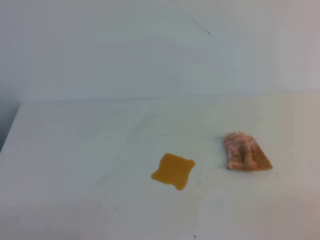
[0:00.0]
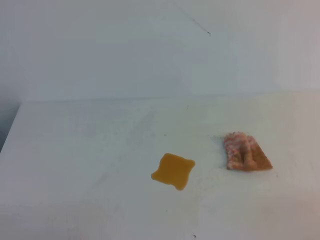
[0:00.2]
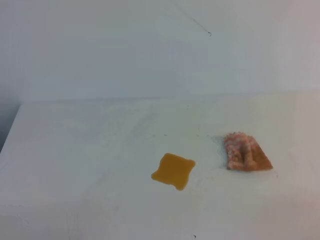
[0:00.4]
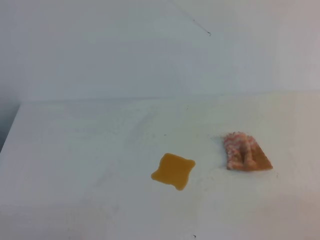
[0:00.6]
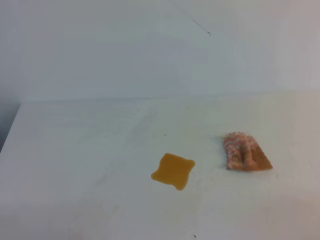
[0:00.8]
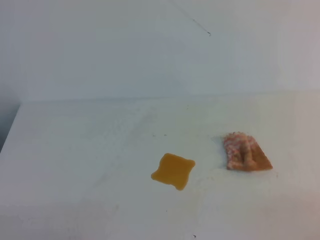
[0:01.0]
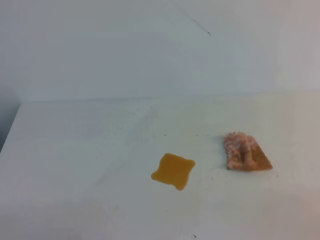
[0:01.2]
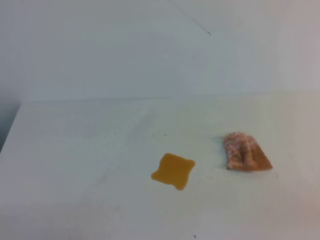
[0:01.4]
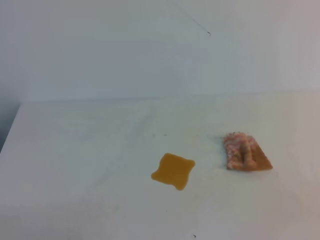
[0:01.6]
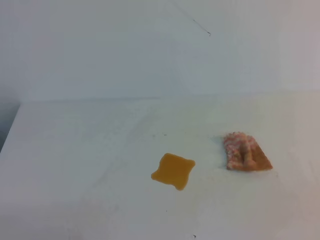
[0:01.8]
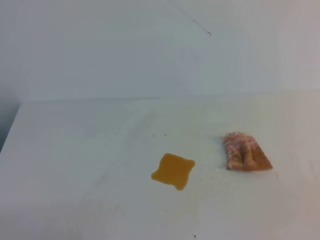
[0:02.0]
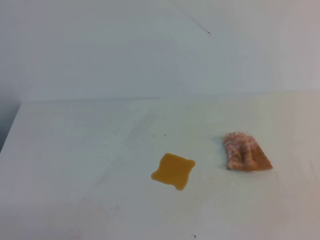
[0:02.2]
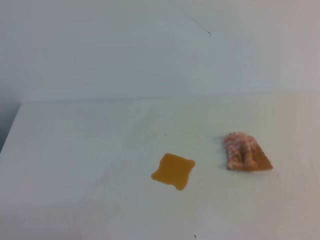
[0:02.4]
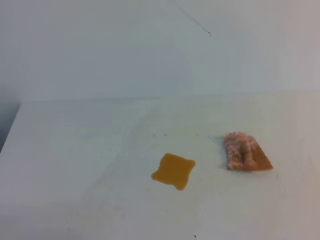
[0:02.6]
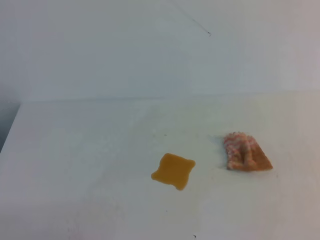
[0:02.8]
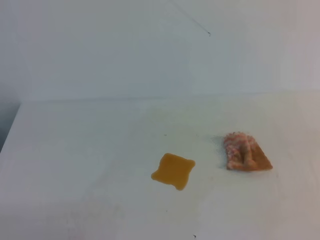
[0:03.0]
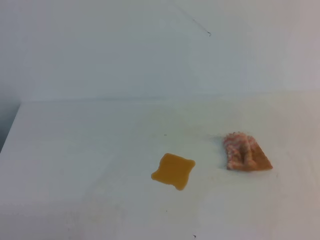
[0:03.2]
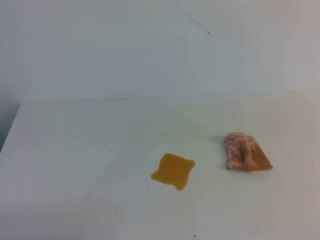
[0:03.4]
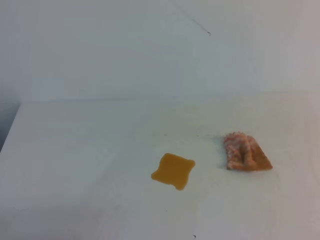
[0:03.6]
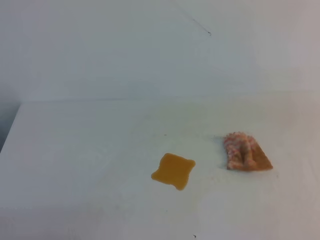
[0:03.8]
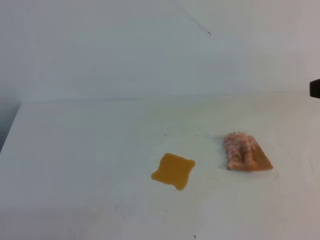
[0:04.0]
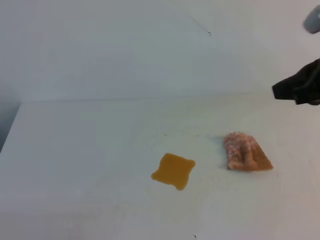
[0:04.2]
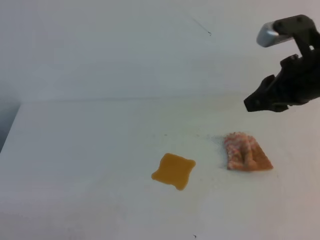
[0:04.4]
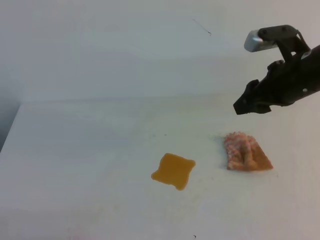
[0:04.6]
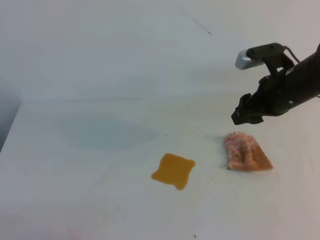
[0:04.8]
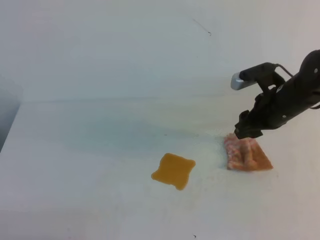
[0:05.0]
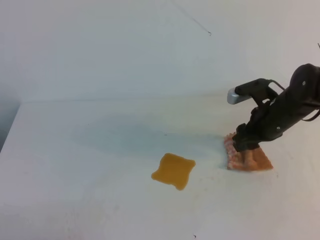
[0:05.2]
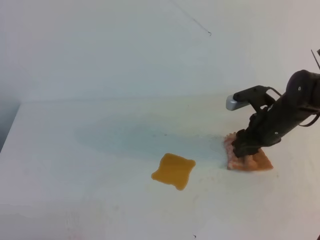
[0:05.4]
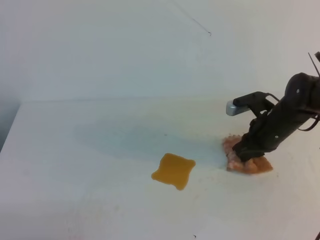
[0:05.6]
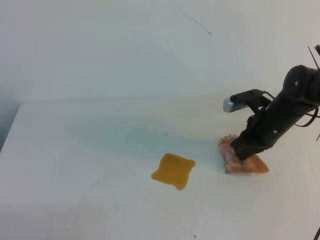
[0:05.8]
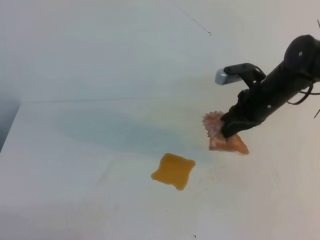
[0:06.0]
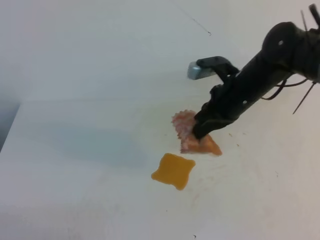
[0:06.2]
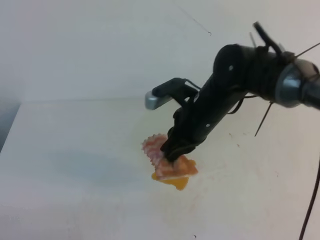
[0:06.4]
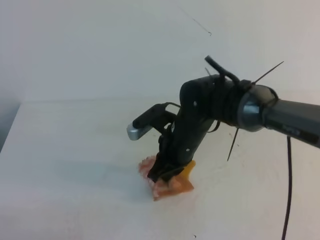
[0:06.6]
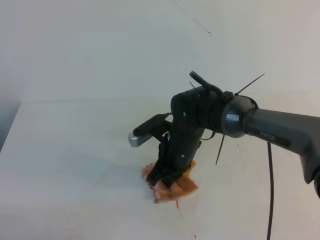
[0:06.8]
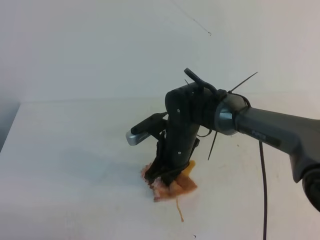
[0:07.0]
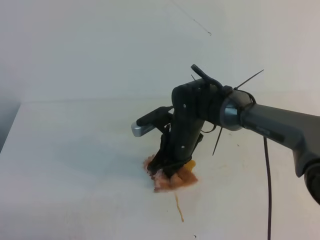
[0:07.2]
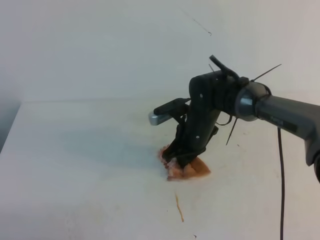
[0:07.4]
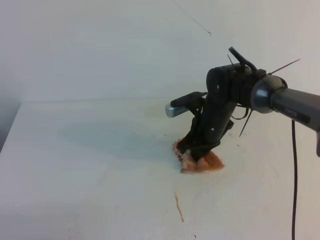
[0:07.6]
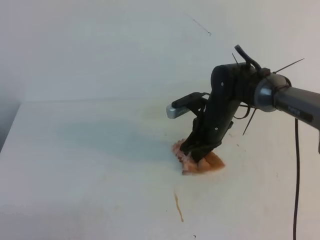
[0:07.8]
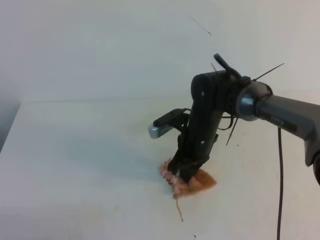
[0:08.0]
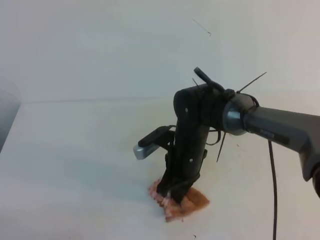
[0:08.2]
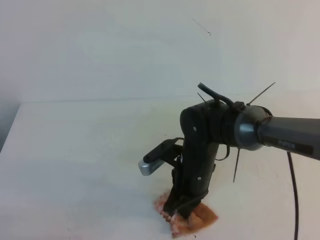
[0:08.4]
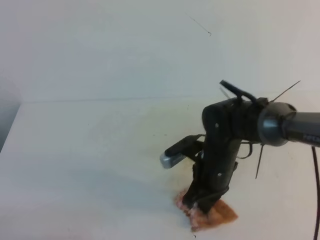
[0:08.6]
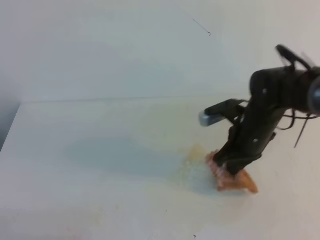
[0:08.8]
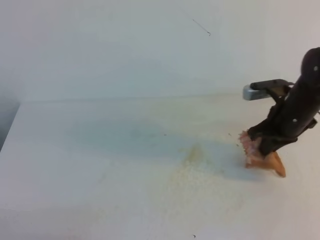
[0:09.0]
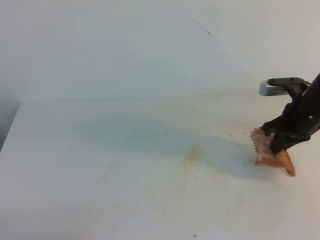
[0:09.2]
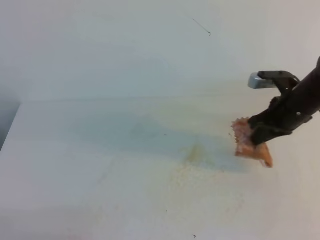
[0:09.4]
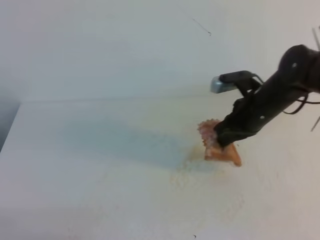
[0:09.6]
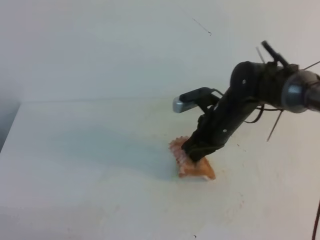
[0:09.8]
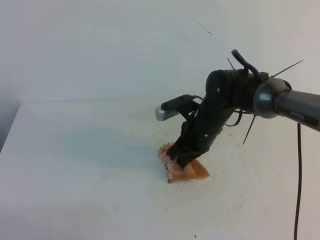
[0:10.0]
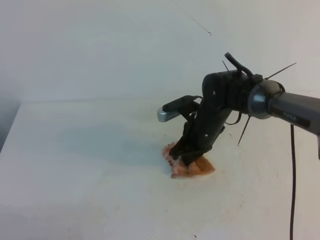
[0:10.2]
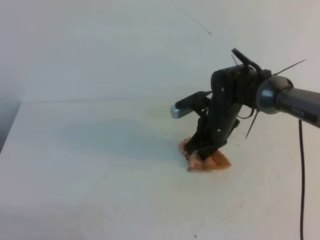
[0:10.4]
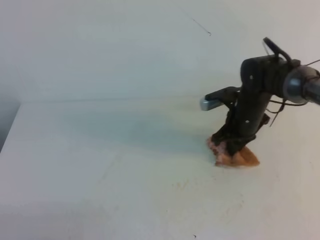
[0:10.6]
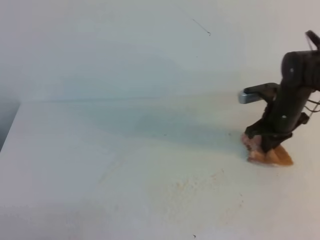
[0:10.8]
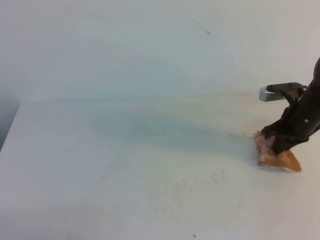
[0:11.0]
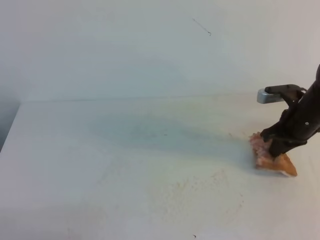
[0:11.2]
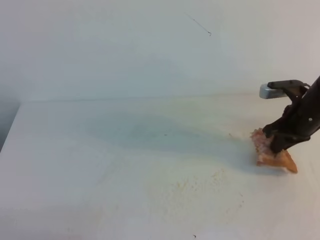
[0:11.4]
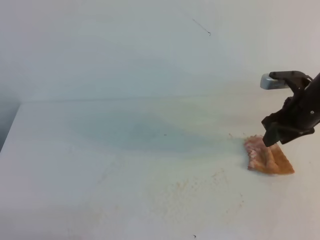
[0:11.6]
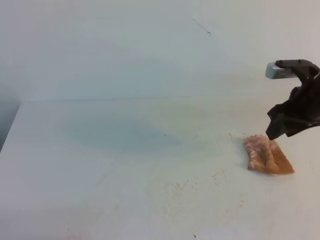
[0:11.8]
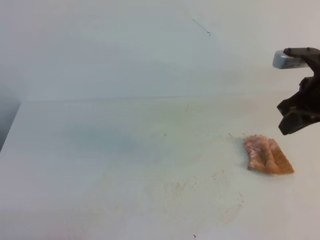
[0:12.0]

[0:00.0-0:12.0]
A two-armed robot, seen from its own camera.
0:03.0 to 0:04.4: The right gripper heads forward, covering roughly 25 cm, and opens up.
0:04.4 to 0:06.0: The right gripper moves downward and forward, some 15 cm, and opens, then closes again.
0:06.0 to 0:07.6: The right gripper heads to the left and downward, covering roughly 10 cm.
0:07.6 to 0:09.0: The right gripper shifts approximately 15 cm to the right.
0:09.0 to 0:10.4: The right gripper travels to the left by some 10 cm.
0:10.4 to 0:12.0: The right gripper shifts approximately 20 cm to the right and upward.

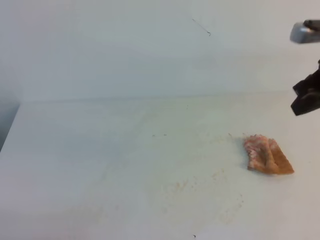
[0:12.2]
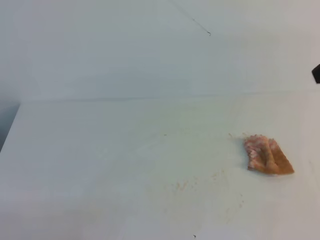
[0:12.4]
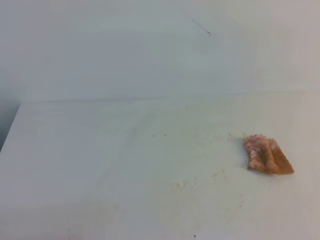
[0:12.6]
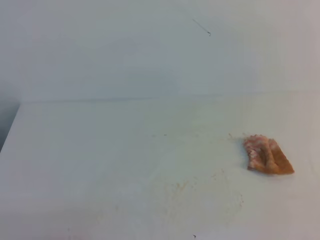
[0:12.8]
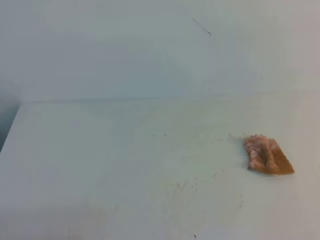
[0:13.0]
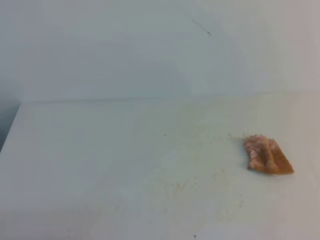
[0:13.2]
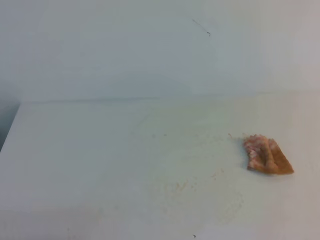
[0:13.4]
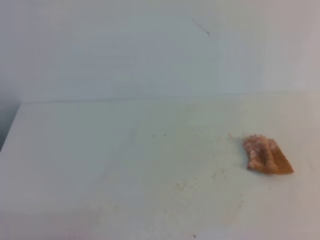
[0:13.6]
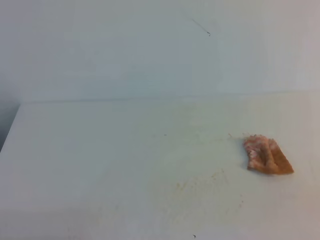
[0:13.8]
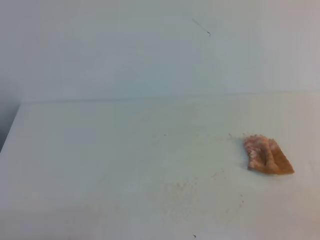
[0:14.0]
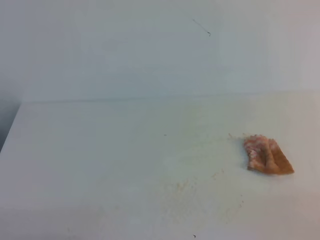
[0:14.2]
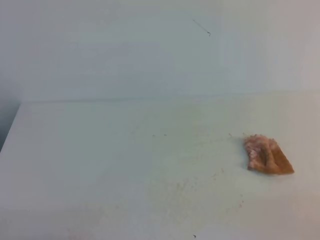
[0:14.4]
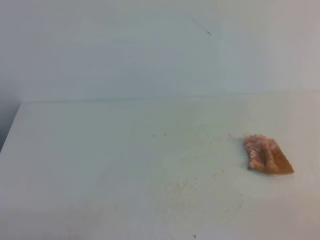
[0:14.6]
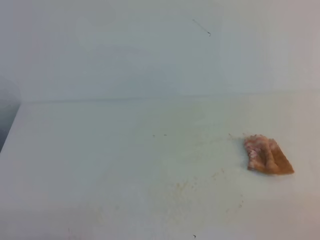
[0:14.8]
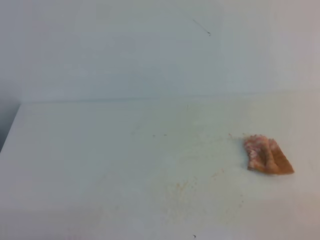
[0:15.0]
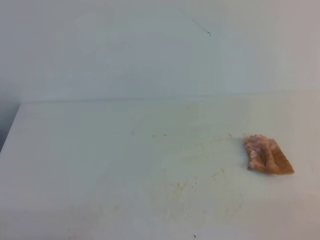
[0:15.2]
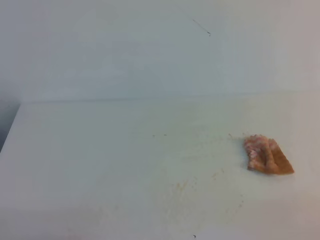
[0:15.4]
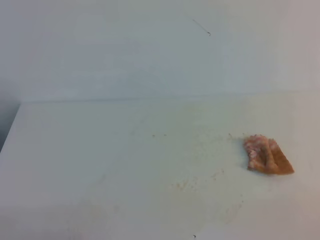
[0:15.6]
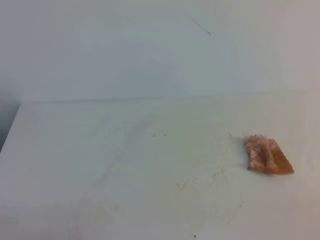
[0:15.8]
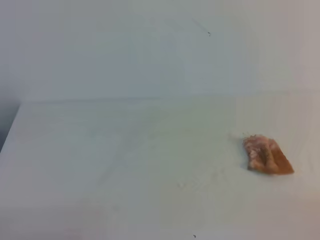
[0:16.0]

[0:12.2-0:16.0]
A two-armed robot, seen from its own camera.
0:12.2 to 0:13.4: The right gripper shifts approximately 30 cm backward and upward.
0:14.8 to 0:16.0: Both grippers stay about where they are.
